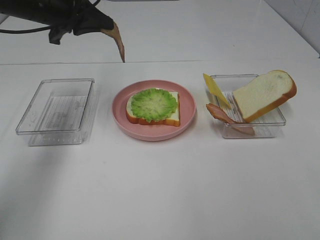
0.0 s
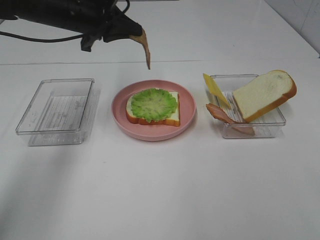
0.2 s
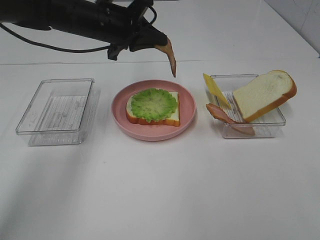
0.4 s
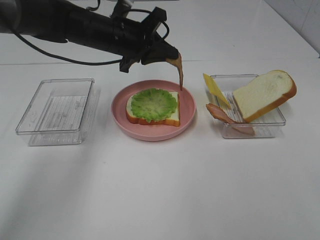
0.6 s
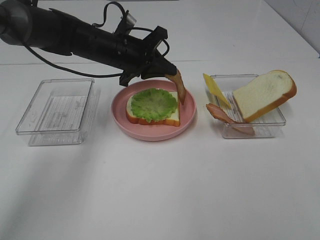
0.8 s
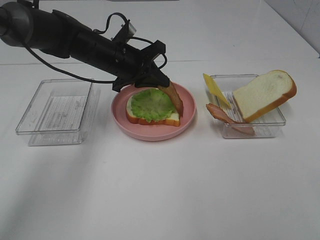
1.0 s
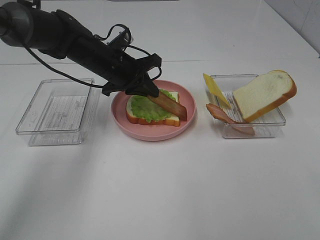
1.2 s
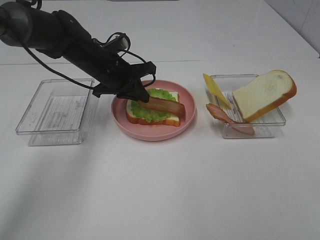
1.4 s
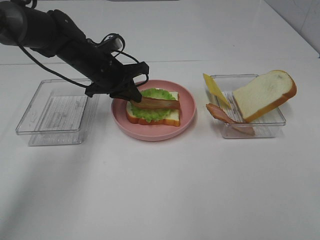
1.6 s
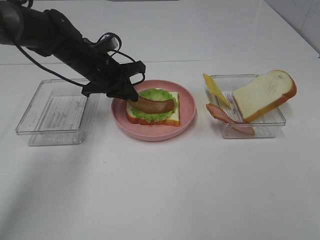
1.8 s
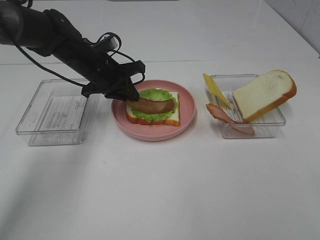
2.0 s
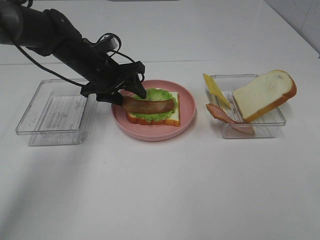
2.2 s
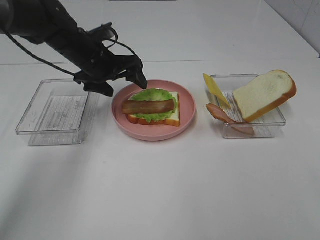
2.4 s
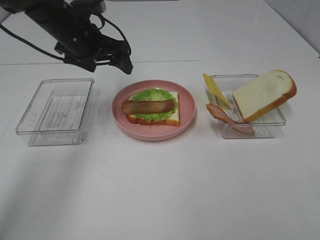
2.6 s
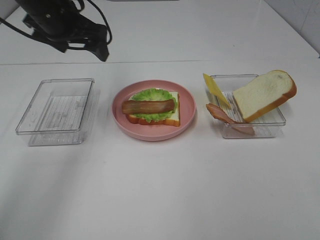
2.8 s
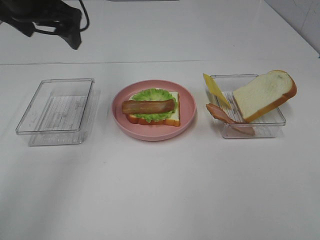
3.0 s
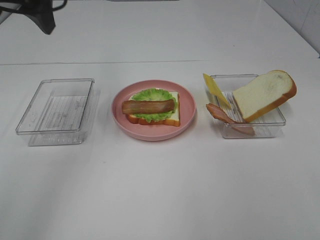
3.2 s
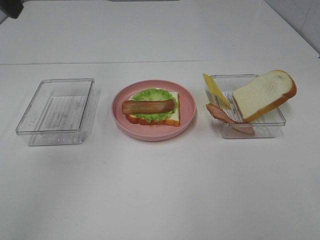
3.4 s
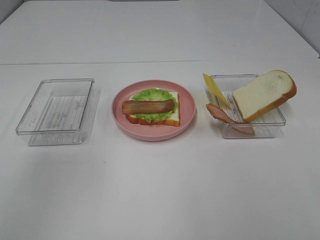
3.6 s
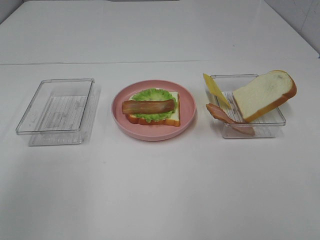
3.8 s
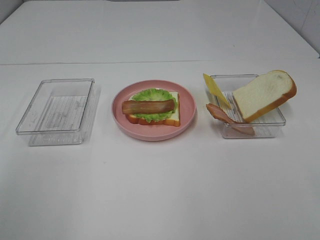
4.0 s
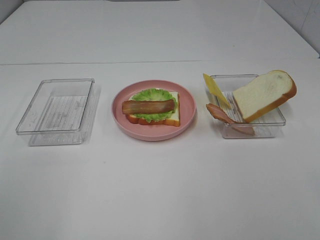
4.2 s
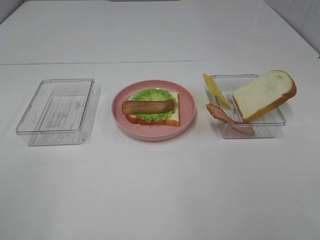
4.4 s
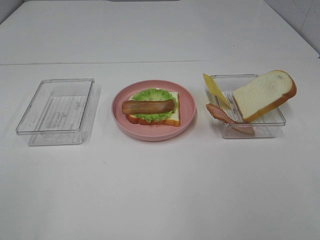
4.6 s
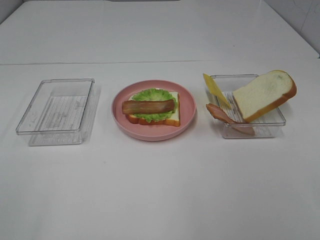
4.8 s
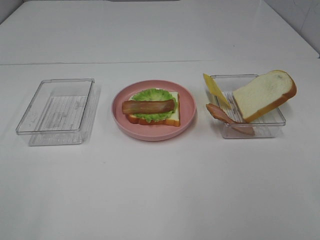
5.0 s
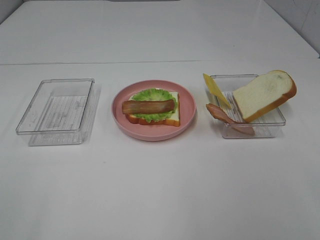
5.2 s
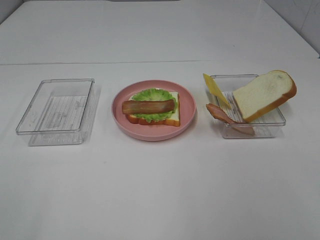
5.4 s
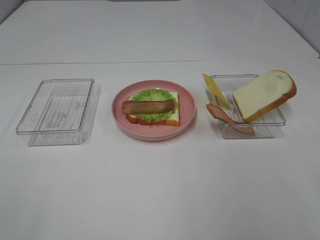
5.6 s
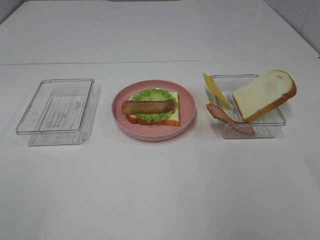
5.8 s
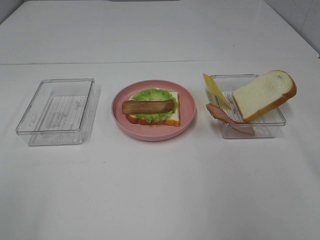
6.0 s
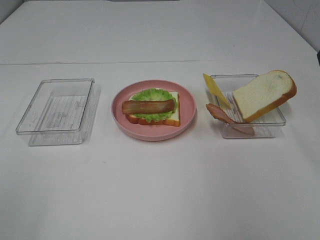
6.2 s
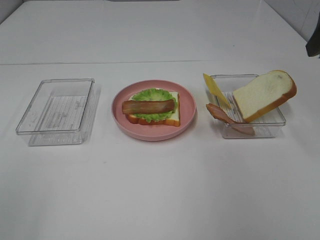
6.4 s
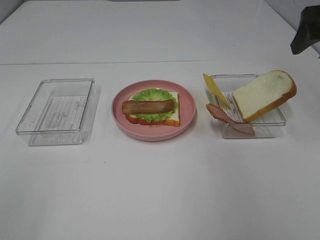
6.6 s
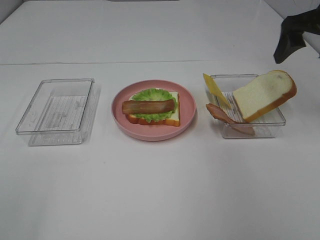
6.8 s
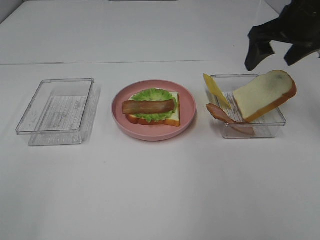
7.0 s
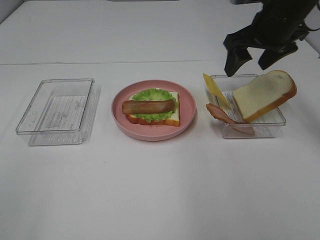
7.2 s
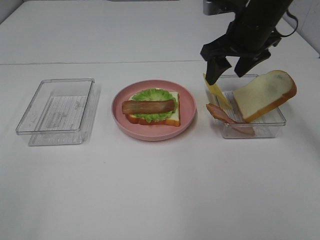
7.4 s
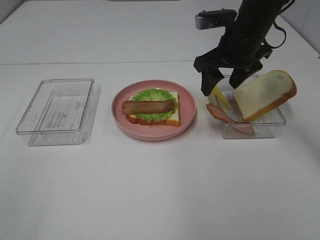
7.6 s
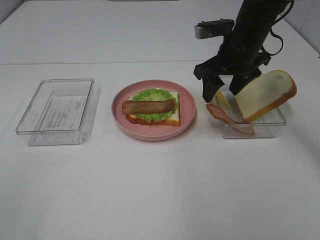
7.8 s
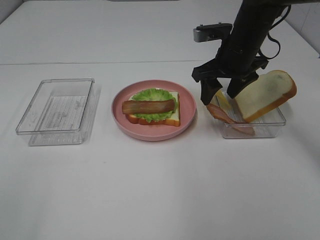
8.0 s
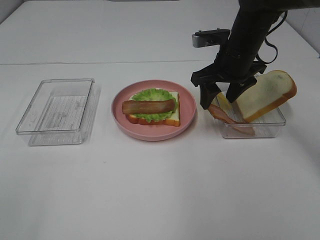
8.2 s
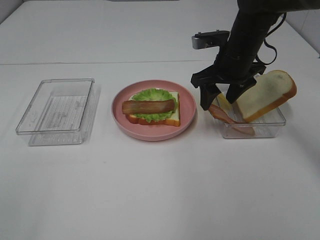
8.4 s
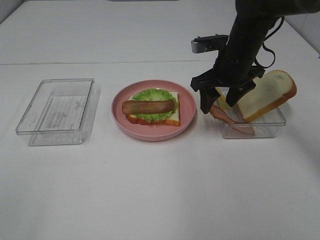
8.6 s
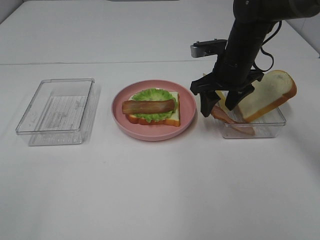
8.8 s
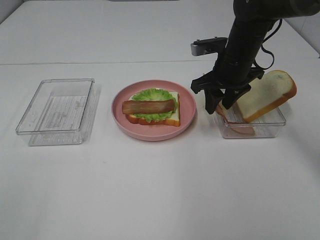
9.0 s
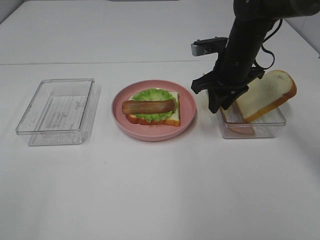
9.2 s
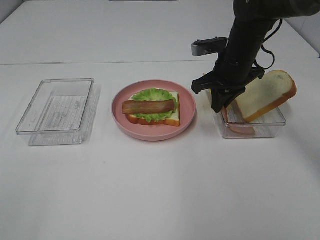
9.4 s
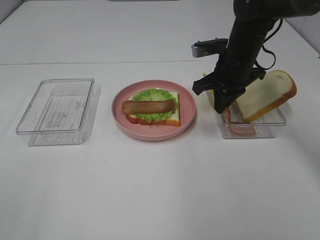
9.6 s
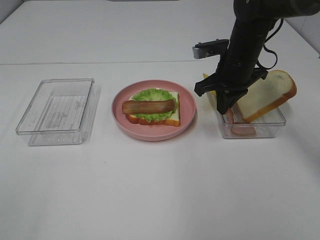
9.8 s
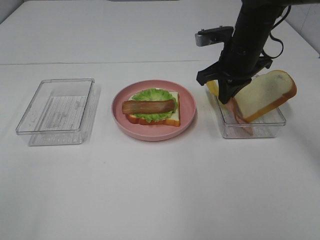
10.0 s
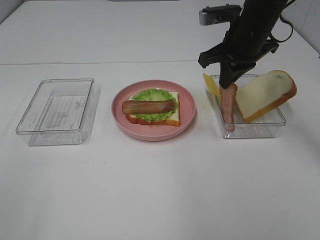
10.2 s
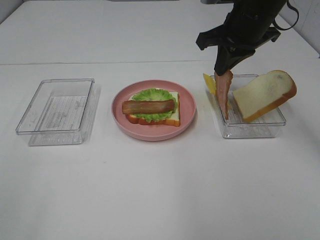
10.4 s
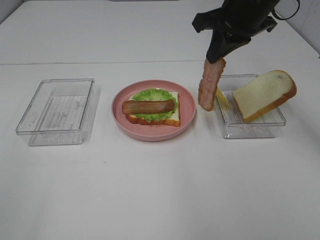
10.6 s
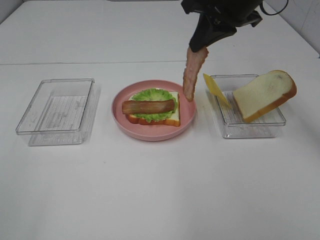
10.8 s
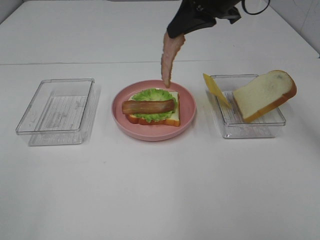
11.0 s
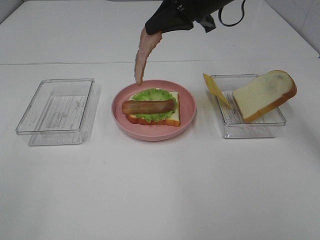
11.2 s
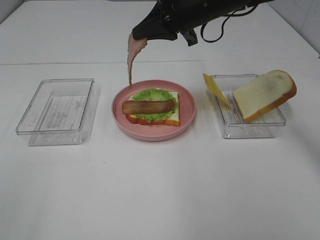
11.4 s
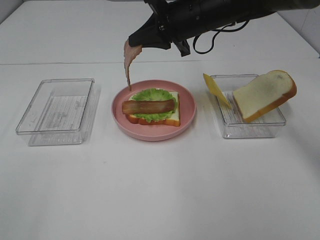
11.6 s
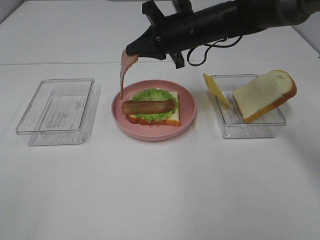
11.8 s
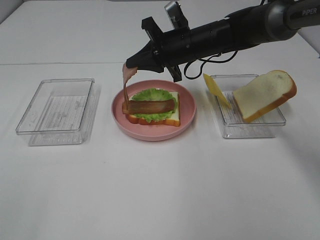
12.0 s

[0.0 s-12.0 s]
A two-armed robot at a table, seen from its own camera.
Task of the whole recording: Make sandwiches.
Step, 0.0 to 2.2 s: Left hand:place bacon on lettuce slice.
Step, 2.4 to 9.6 s: Right hand:grab the bacon.
0.0 to 1.6 s: The left gripper moves downward and to the right, approximately 15 cm.
1.6 to 3.0 s: The left gripper moves upward and to the left, some 20 cm, and opens up.
3.0 to 4.4 s: The left gripper moves backward, some 35 cm.
6.0 to 7.6 s: The right gripper goes about 25 cm forward, to the left and downward.
7.6 to 9.0 s: The grippers make only small movements.
9.0 to 10.4 s: The right gripper goes some 10 cm upward, and closes.
10.4 to 12.0 s: The right gripper is displaced downward, to the left and forward by approximately 15 cm.

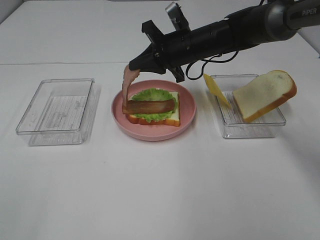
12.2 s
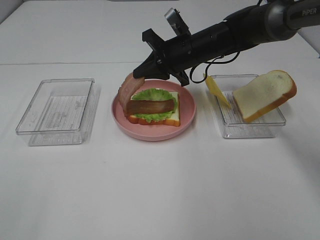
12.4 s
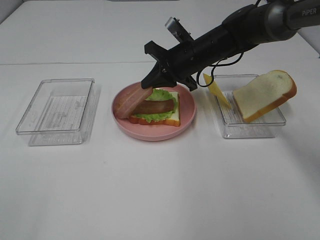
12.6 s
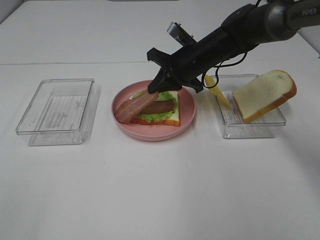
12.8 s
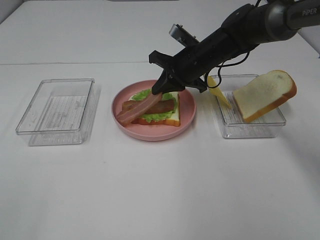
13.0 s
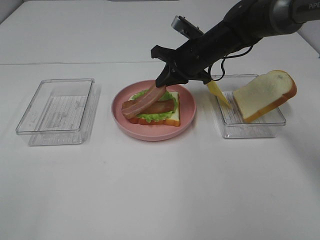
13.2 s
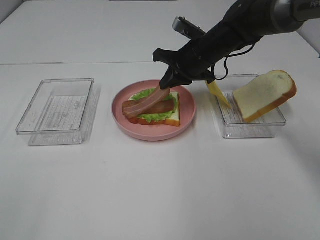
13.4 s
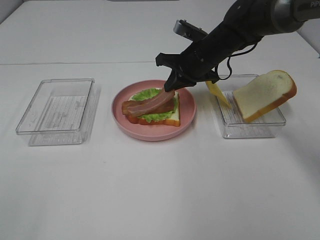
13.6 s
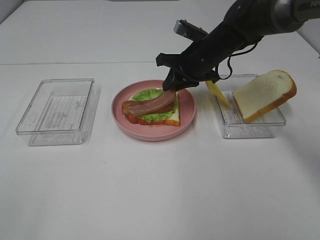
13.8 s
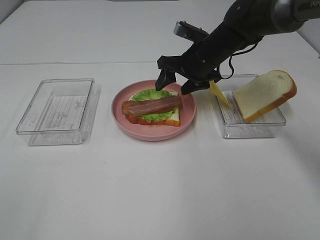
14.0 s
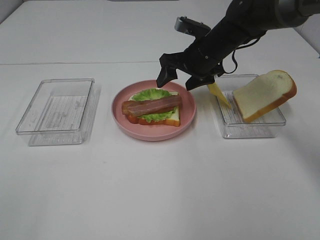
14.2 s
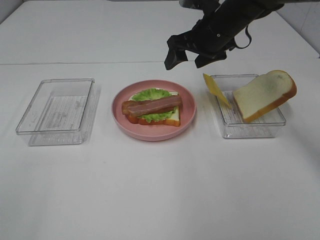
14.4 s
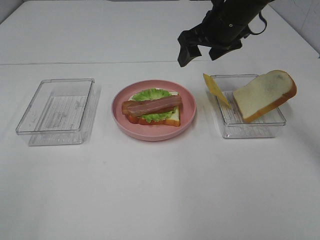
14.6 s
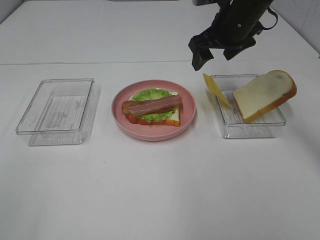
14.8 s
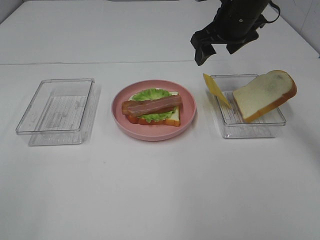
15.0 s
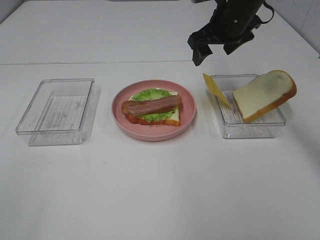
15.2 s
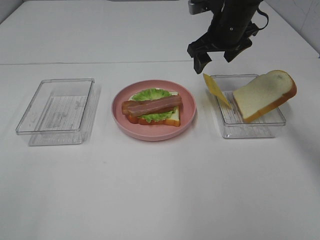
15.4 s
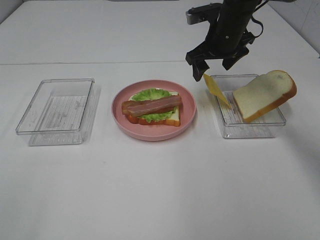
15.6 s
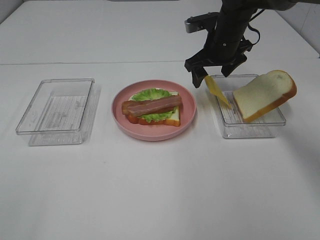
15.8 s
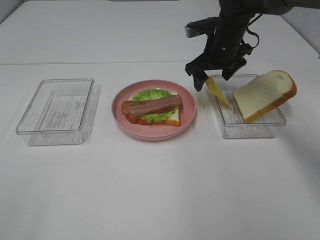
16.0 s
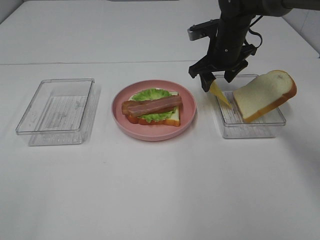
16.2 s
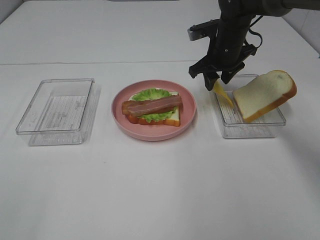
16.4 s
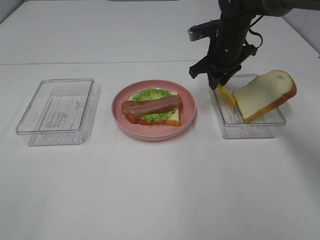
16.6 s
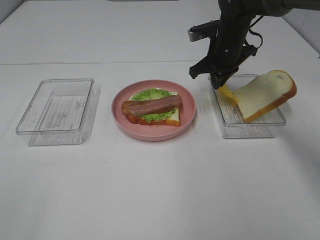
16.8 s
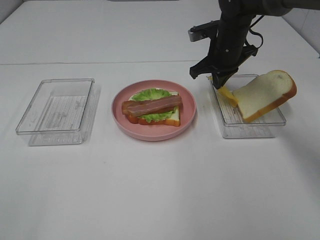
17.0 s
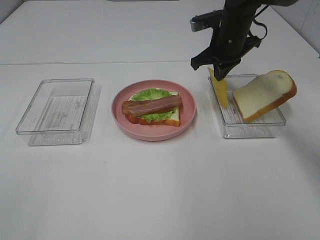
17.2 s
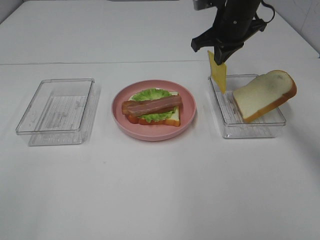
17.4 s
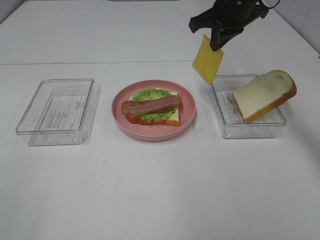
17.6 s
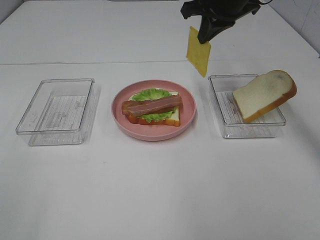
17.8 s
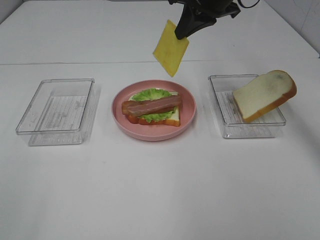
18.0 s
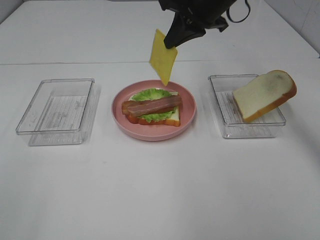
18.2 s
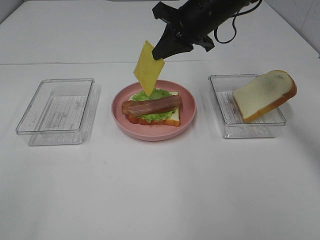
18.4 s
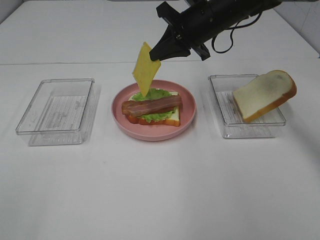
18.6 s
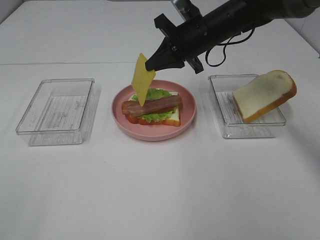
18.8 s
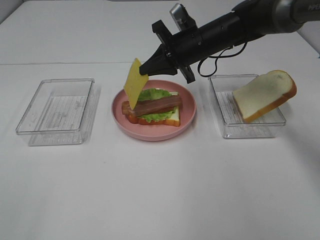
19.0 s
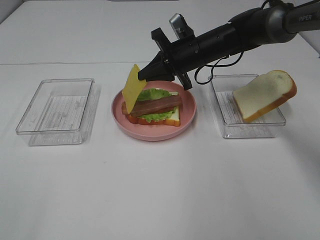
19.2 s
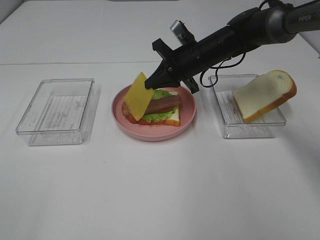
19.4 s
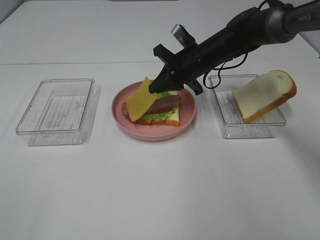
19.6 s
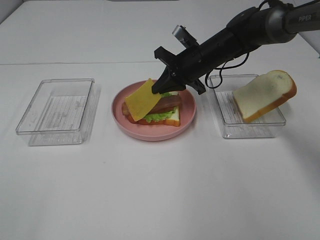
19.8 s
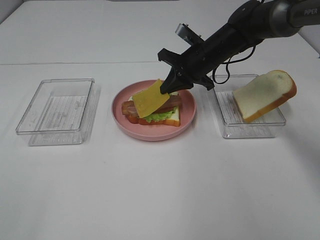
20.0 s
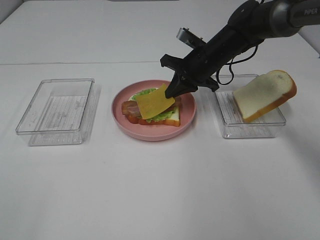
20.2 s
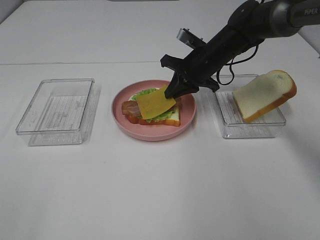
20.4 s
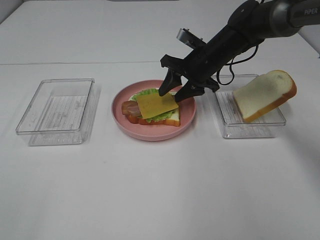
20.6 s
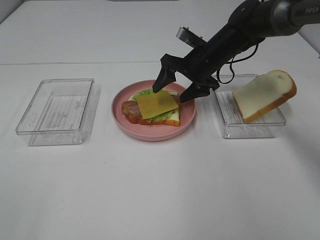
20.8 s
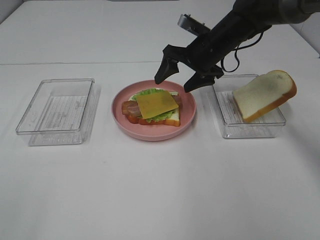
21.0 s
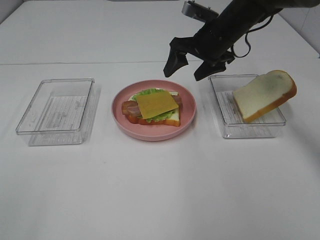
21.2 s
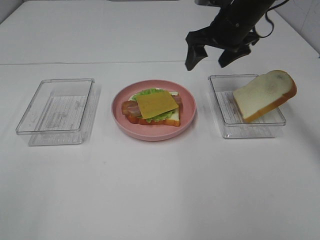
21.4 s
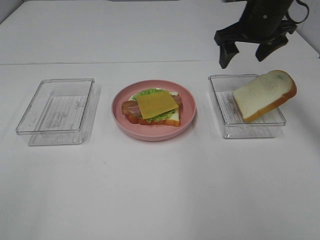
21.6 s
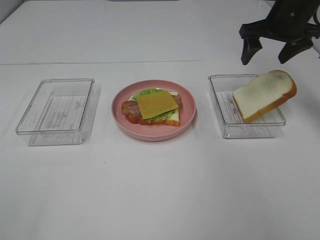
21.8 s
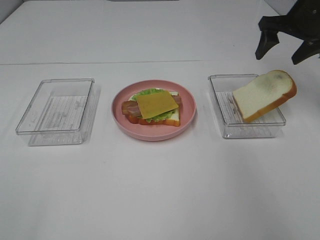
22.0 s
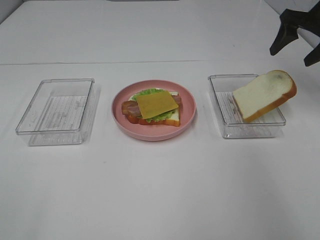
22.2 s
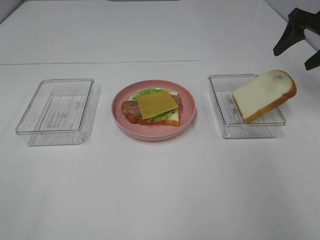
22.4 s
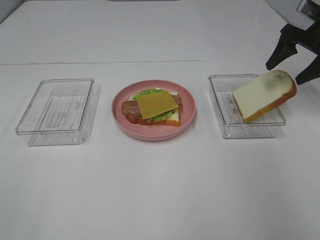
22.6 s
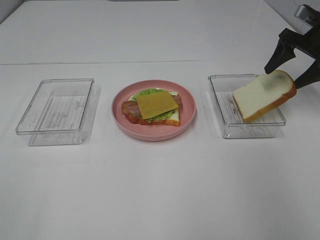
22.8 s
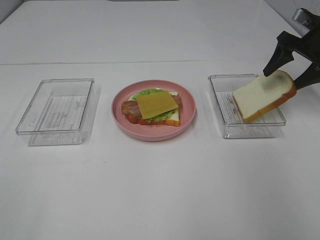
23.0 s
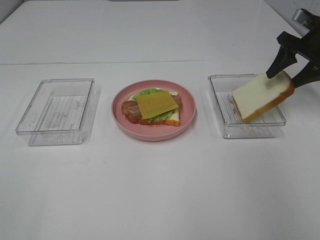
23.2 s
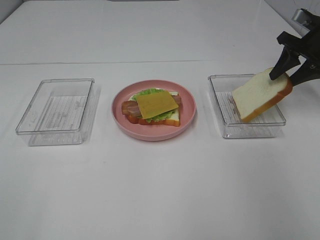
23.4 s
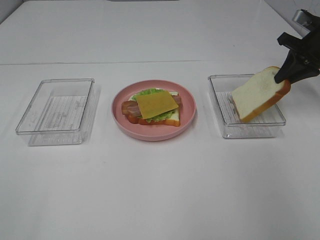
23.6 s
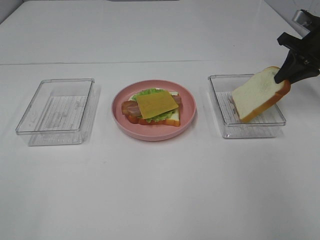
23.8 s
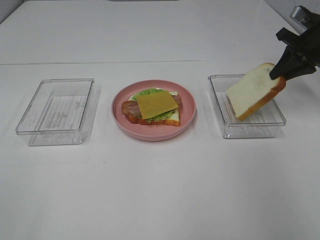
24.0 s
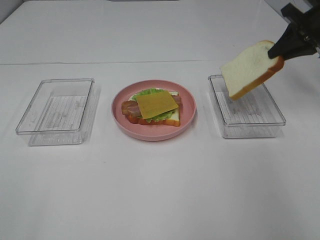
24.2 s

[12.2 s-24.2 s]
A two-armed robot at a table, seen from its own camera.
Task of the whole recording: Make sandwiches.
Step, 14.2 to 17.2 s: Right hand:grab the cheese slice.
Step, 17.4 to 20.8 s: Right hand:place the cheese slice on top of the bacon.
Step, 21.0 to 24.0 s: Right hand:grab the bread slice.
13.8 to 15.2 s: The right gripper travels upward by roughly 10 cm, and opens up.
15.2 to 16.6 s: The right gripper is displaced downward by approximately 5 cm, and closes.
16.6 to 18.2 s: The right gripper goes about 10 cm upward.
18.2 to 19.8 s: The right gripper is displaced downward by some 15 cm.
19.8 to 21.2 s: The right gripper travels upward by approximately 5 cm, and opens its fingers.
21.2 to 22.6 s: The right gripper moves to the right, some 20 cm.
22.6 to 24.2 s: The right gripper closes up.
